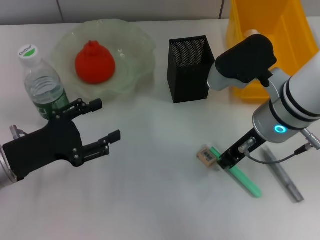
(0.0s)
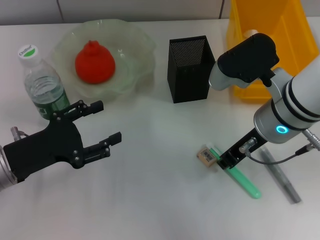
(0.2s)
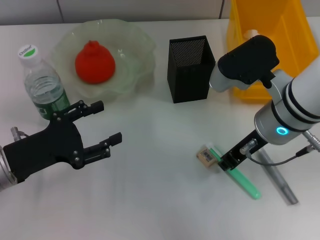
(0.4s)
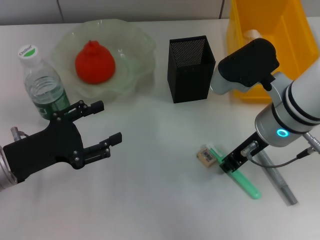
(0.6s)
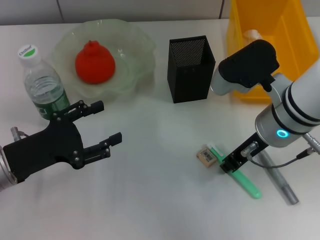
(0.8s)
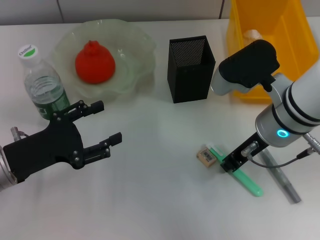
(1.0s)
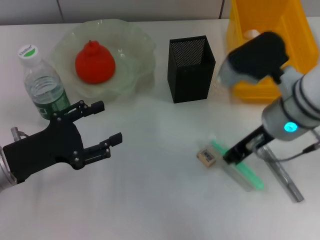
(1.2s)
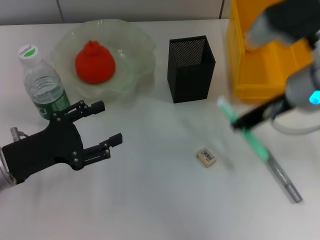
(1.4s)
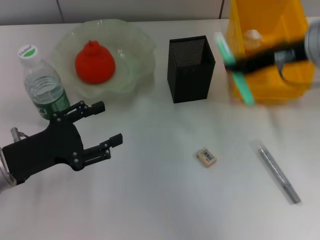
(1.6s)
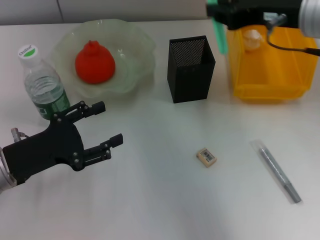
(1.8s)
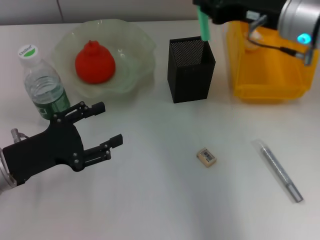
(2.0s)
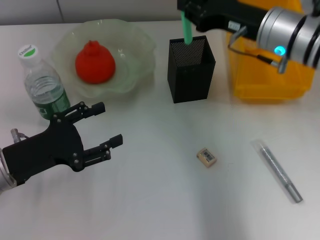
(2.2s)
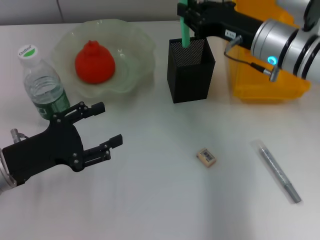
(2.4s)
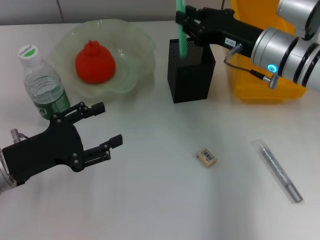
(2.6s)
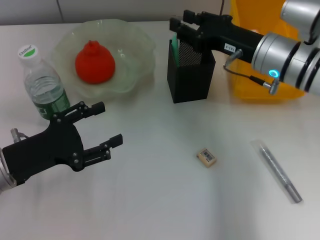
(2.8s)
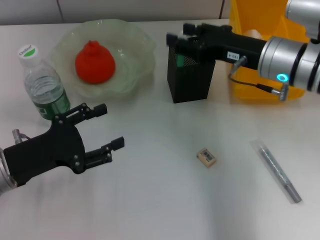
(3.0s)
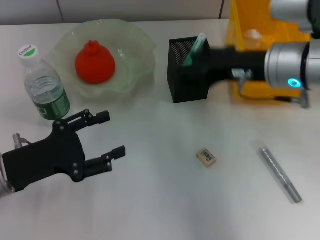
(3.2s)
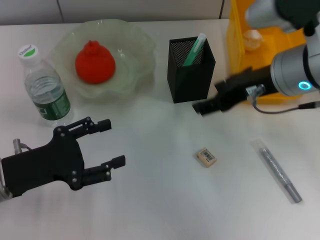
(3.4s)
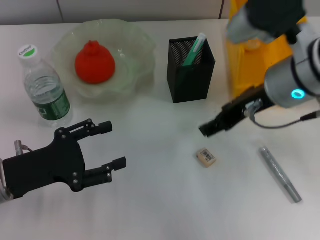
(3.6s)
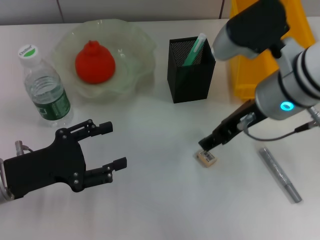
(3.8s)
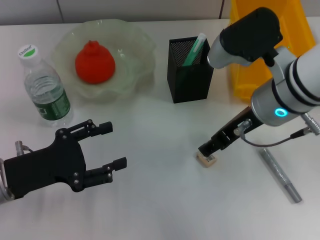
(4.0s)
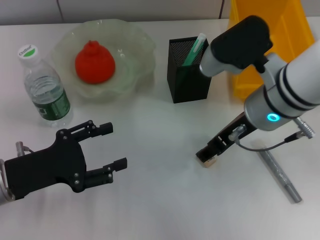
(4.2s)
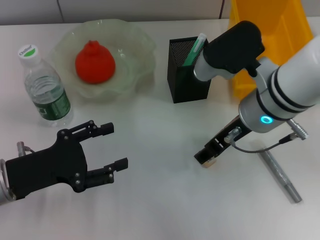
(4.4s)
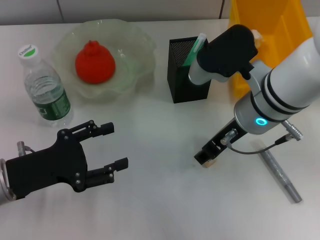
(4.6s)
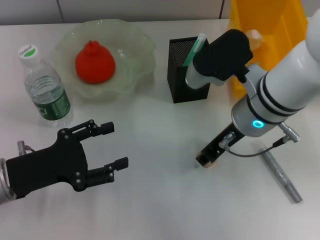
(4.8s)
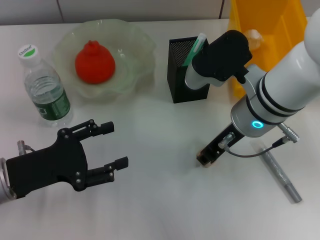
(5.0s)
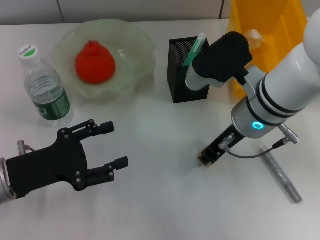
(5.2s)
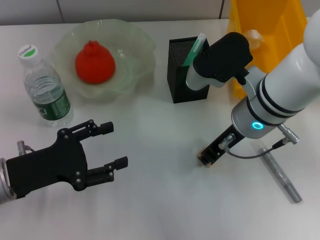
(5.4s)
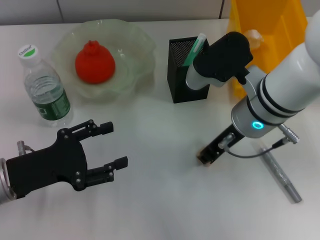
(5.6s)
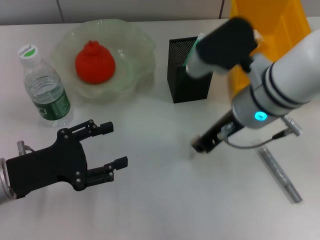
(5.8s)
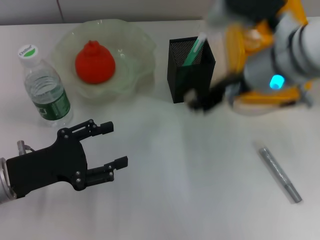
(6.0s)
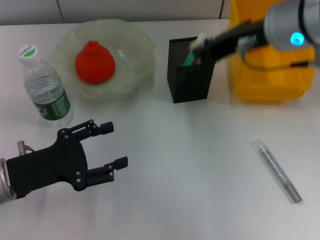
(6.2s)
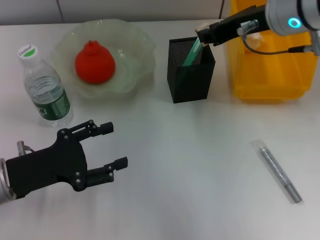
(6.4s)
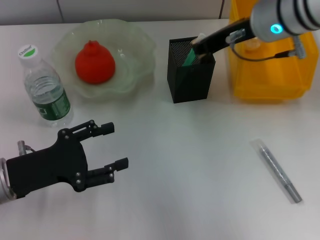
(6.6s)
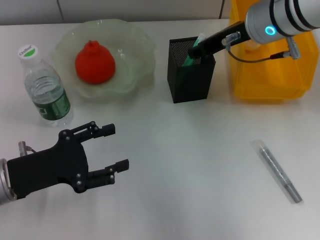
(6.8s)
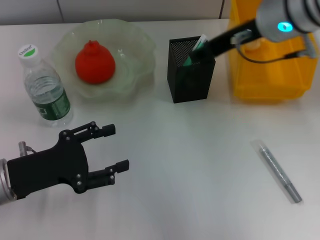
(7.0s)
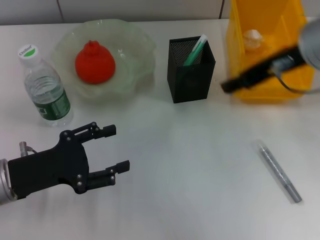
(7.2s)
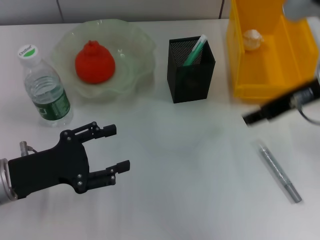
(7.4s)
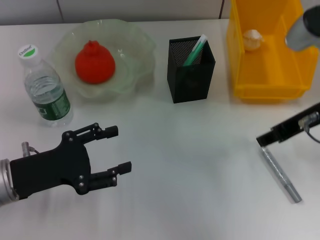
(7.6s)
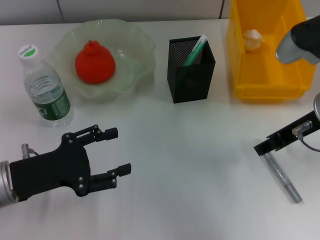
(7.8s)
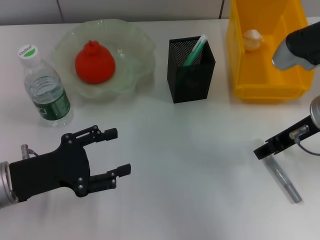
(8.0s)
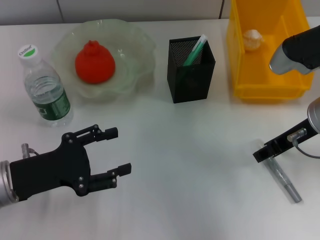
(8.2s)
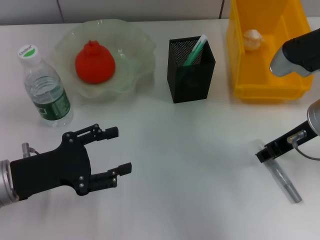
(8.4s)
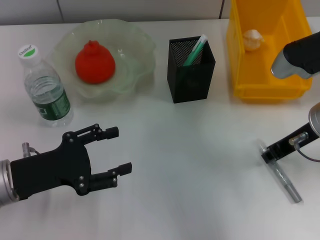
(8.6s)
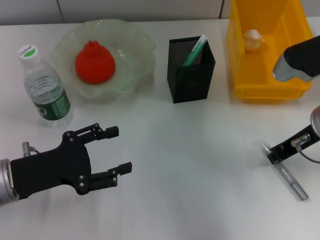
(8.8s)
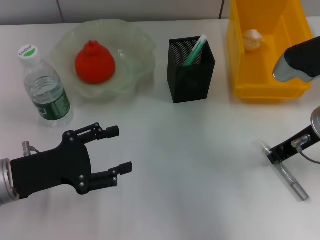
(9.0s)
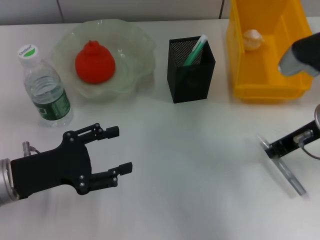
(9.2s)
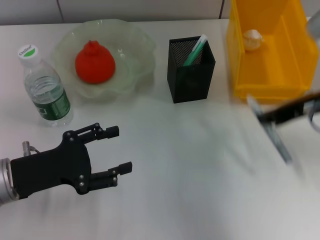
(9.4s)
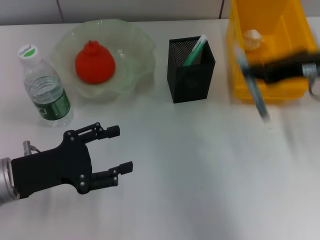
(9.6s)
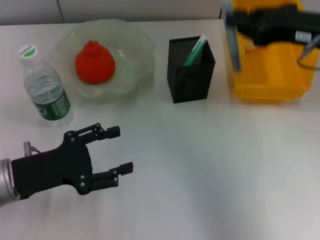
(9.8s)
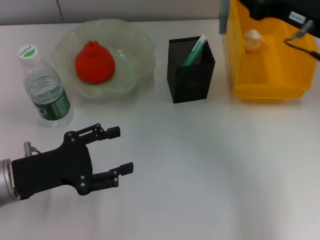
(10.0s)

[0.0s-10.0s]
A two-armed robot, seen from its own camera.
Step, 1.2s to 2.6s: Place the blue utility knife into the pen holder with the right hand.
Step, 2.8s to 5.4s: Grab the eraser with the right hand.
Step, 5.6s to 6.6s: Put the eraser into the pen holder with the right hand.
Step, 6.8s to 8.8s: Grab the gray glue with the right hand.
0.0s to 1.4s: The right gripper ends up approximately 5 cm from where it was.
1.4s to 2.8s: The right gripper is displaced downward and forward by some 10 cm.
2.8s to 4.2s: The right gripper moves backward, approximately 5 cm, and opens.
4.2s to 5.8s: The right gripper closes.
5.8s to 7.2s: The right gripper travels upward and to the right by roughly 10 cm, and opens up.
7.2s to 8.6s: The right gripper goes about 10 cm downward.
8.6s to 10.0s: The right gripper ends up approximately 5 cm from where it was, and closes.

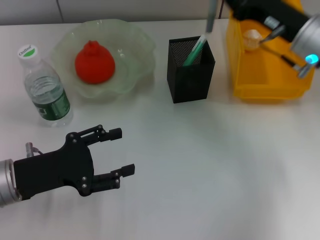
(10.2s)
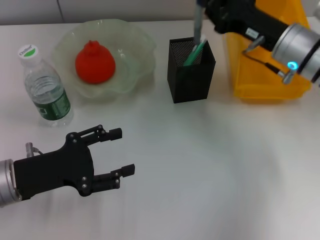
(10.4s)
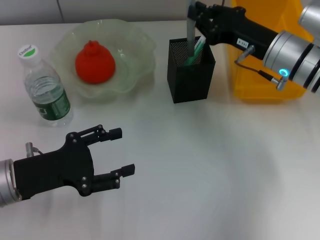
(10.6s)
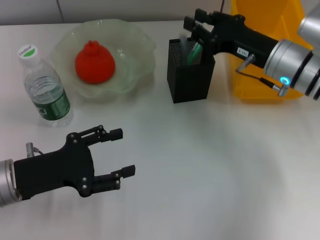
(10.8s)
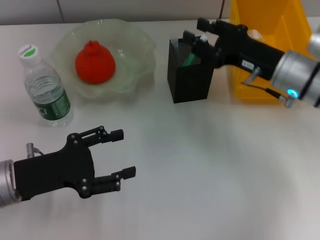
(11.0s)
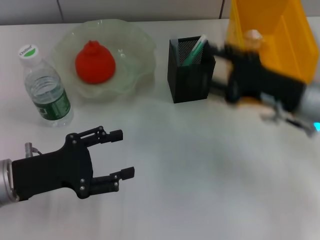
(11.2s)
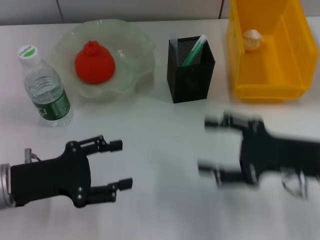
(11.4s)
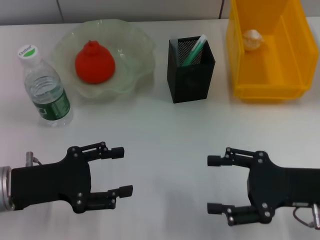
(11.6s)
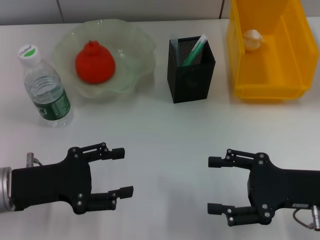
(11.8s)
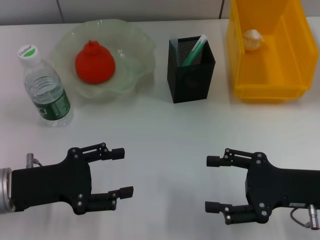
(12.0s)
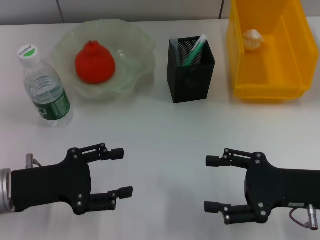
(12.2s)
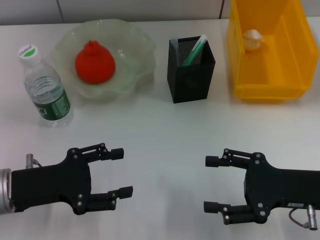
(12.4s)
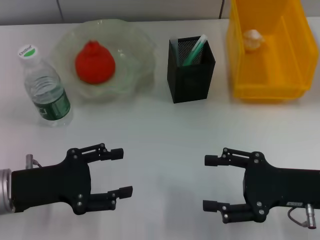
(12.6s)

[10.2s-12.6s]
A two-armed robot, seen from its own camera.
10.2s to 11.4s: The right gripper moves backward, about 15 cm, and opens its fingers.
11.4s to 12.6s: The grippers move only a little.

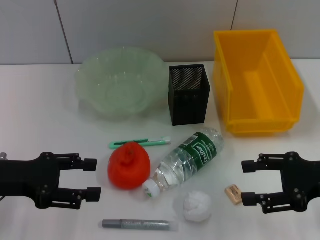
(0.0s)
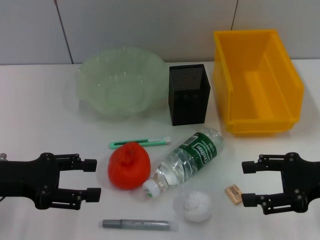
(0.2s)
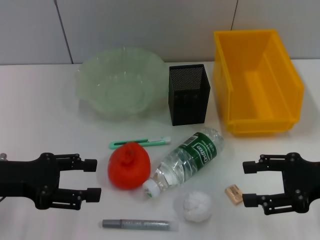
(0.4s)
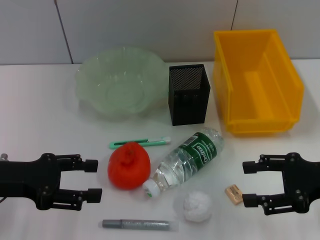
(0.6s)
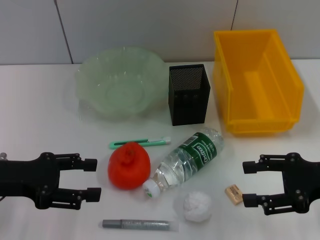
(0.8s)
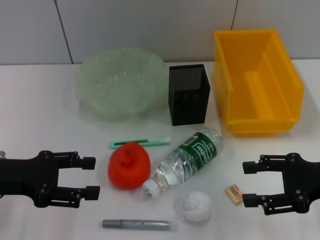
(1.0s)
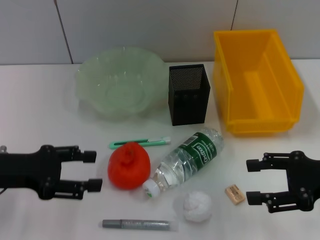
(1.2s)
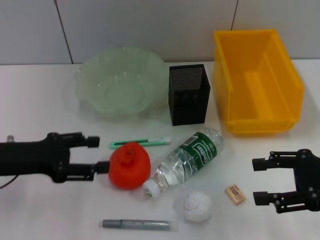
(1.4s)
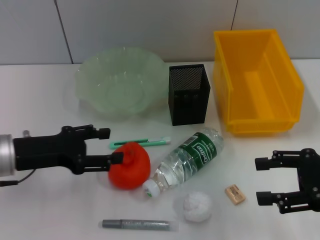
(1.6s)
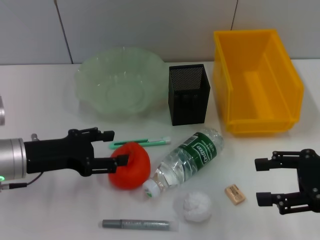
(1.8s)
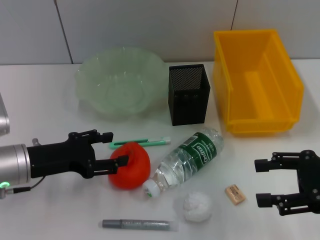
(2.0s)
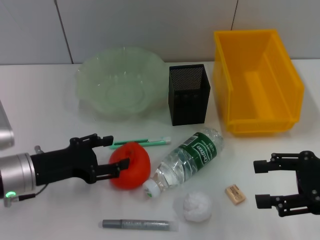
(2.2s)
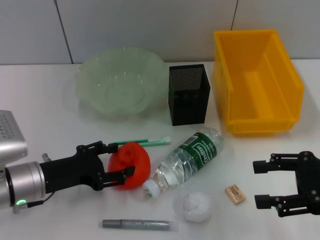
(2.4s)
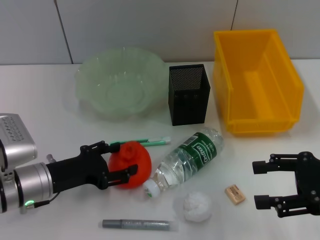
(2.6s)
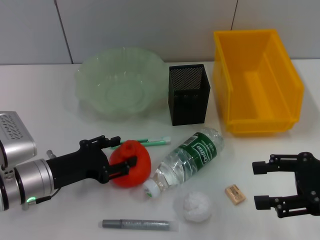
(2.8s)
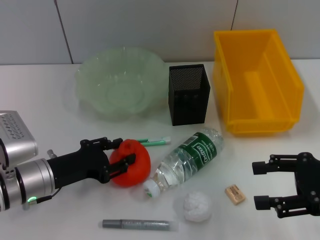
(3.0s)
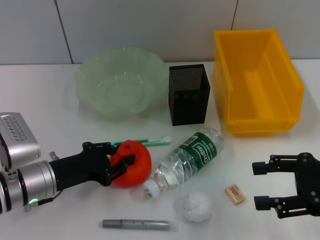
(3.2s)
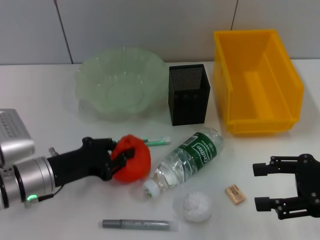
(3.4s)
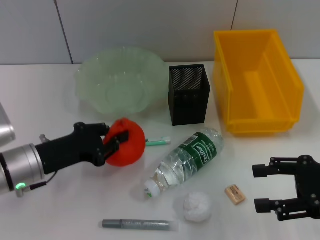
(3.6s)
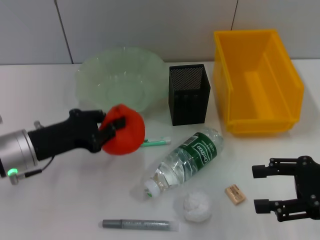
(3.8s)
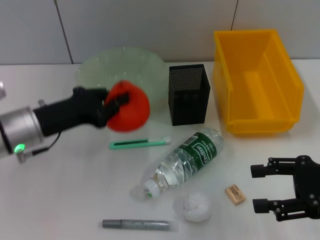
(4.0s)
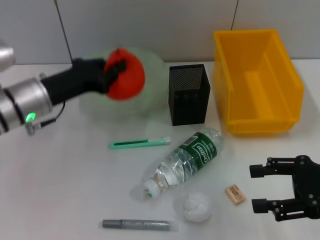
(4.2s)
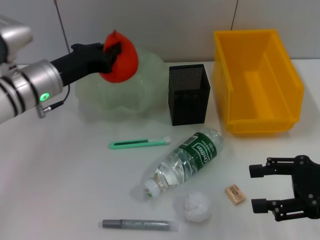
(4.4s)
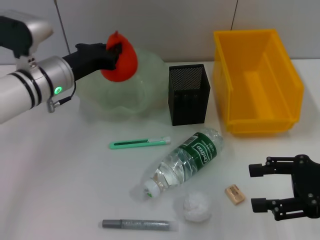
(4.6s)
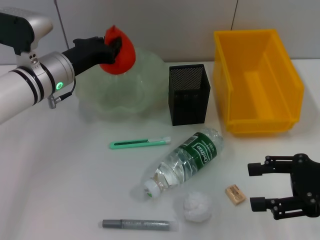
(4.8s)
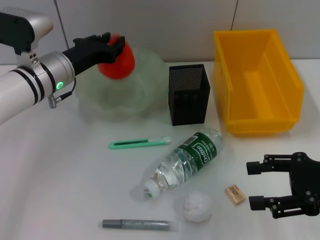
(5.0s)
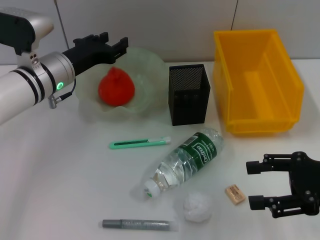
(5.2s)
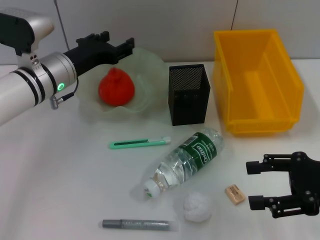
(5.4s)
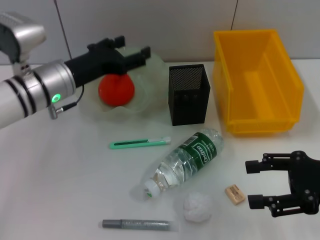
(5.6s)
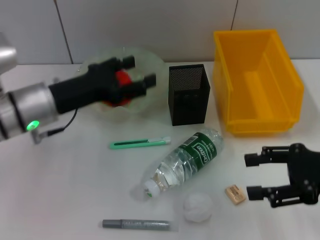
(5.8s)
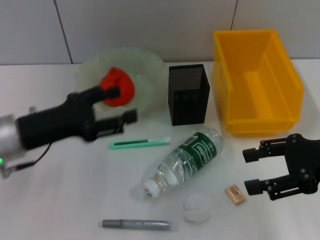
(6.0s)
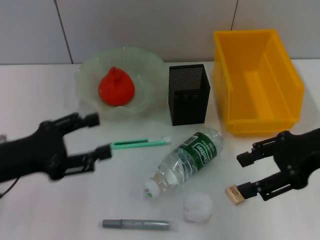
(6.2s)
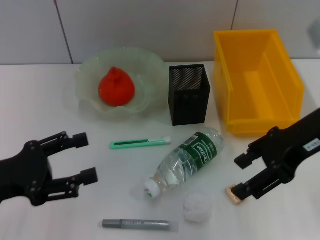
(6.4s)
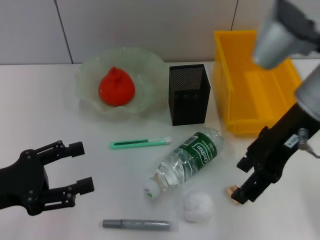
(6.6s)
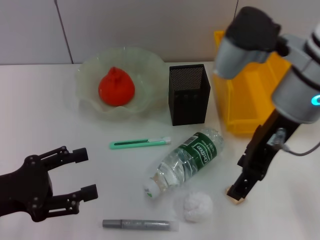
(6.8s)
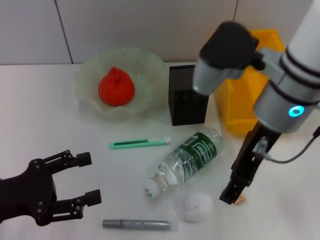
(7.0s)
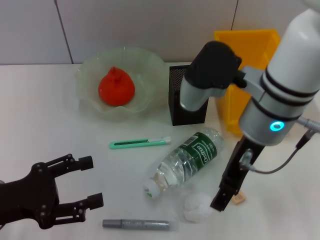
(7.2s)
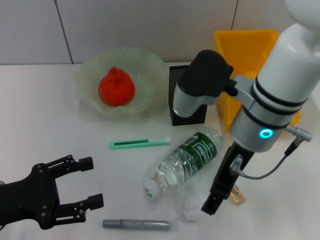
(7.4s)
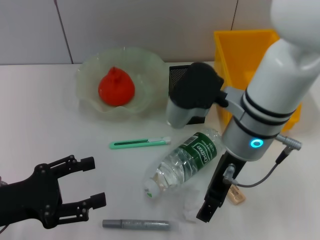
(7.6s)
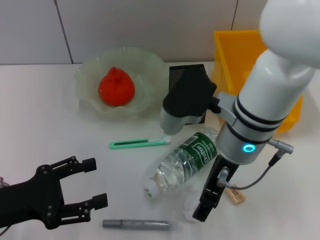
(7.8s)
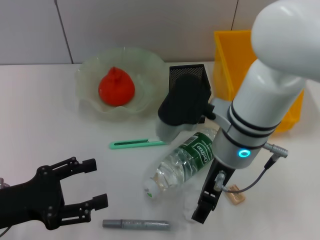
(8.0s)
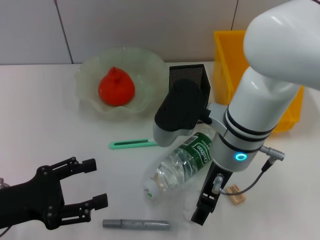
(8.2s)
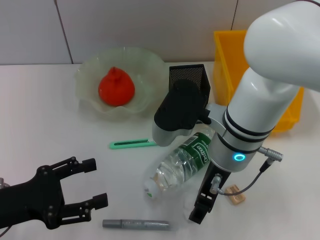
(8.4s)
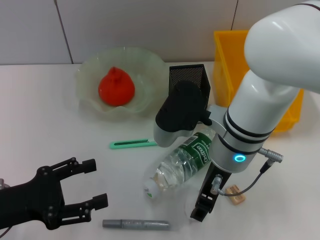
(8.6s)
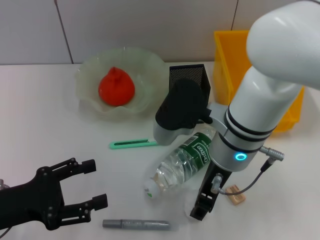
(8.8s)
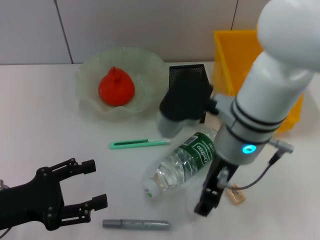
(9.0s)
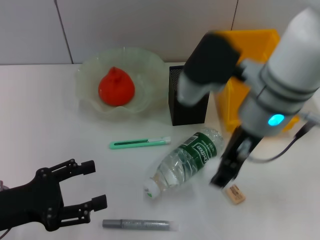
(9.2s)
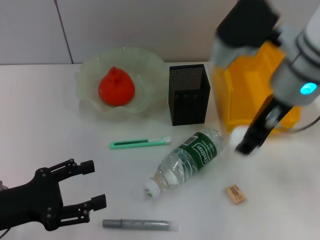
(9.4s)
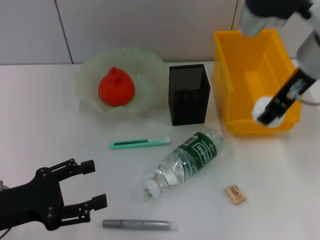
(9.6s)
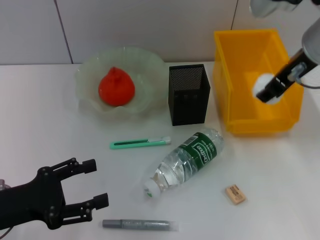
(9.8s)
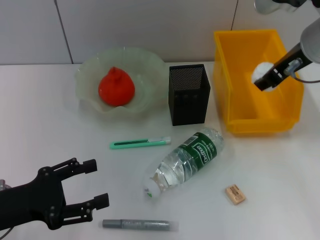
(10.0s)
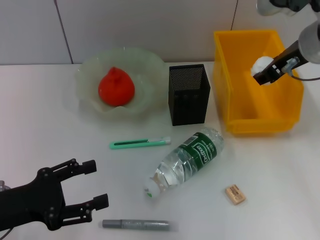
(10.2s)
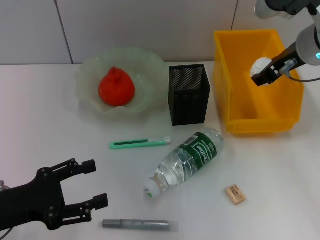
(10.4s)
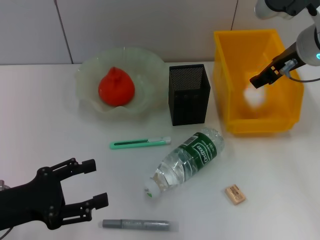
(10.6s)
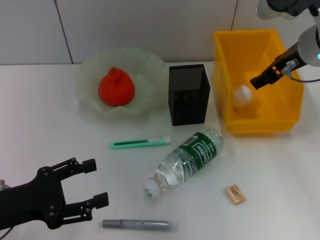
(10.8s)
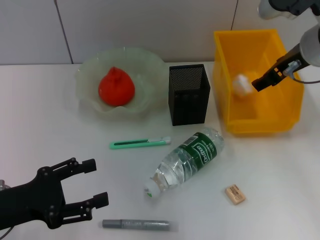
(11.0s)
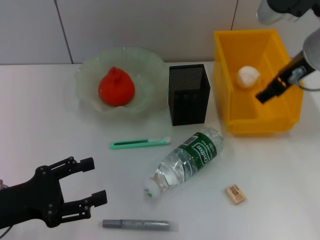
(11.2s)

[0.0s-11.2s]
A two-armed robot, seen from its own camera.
Step, 0.0s to 3.2s: Grab the orange with the left hand.
Step, 3.4s to 5.0s: Place the orange into the fruit bowl with the left hand.
Step, 5.4s to 8.6s: Grab the paper ball with the right hand.
Step, 8.8s to 10.8s: Place the paper ball into the trash can with the right hand.
0.0s to 1.6s: The grippers stay close to where they were, moving slightly.
1.6s to 3.2s: The left gripper travels downward by approximately 5 cm, and closes its fingers.
3.2s to 4.8s: The left gripper is displaced forward and upward by approximately 15 cm, and closes.
4.8s to 6.4s: The right gripper moves upward, to the left and forward, some 15 cm. Meanwhile the left gripper moves backward and to the left, roughly 20 cm, and opens its fingers.
6.4s to 8.0s: The right gripper goes approximately 15 cm to the left and downward.
8.0s to 9.6s: The right gripper shifts roughly 15 cm upward and to the right.
9.6s to 11.2s: The right gripper opens its fingers.
